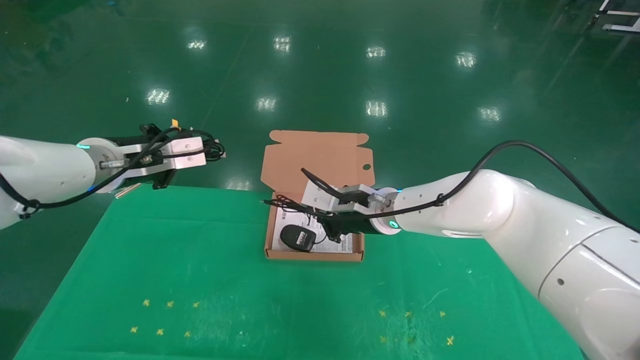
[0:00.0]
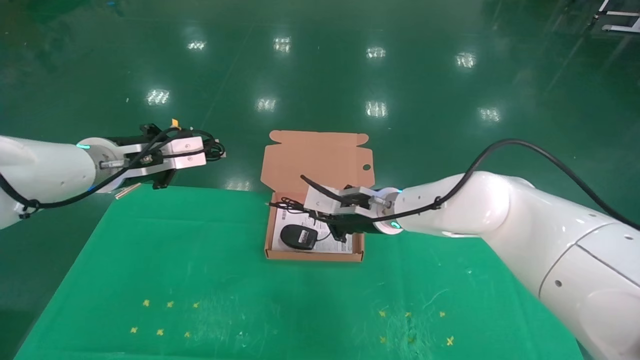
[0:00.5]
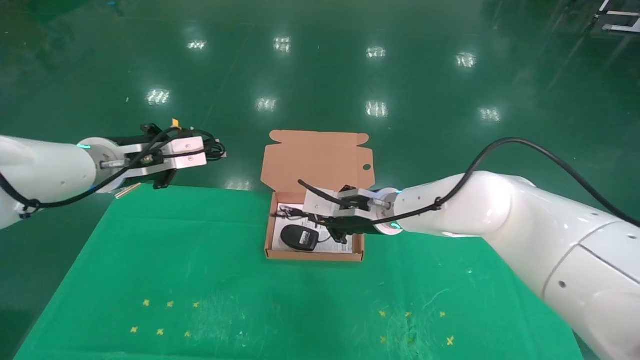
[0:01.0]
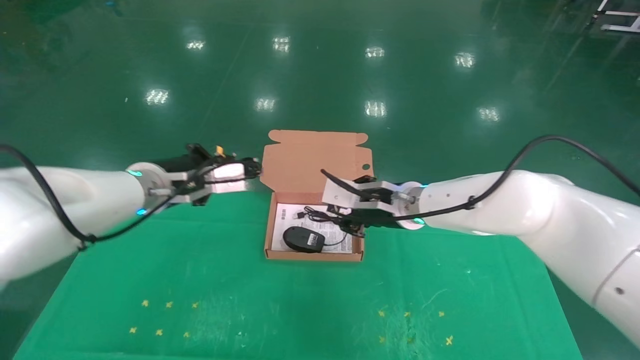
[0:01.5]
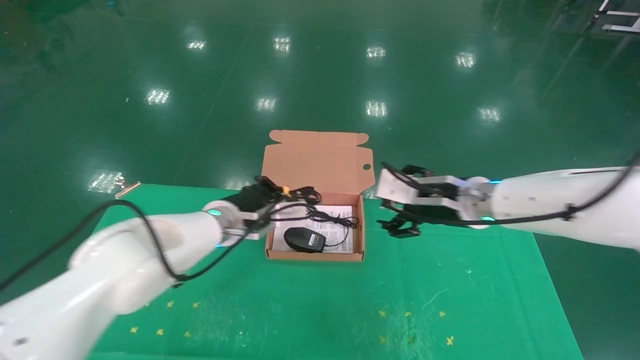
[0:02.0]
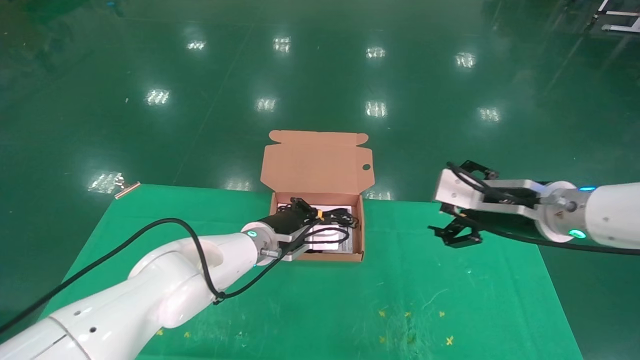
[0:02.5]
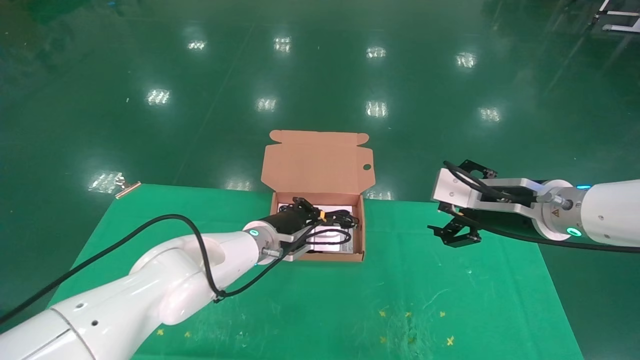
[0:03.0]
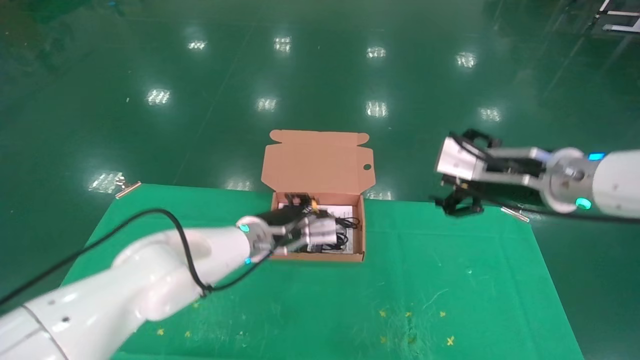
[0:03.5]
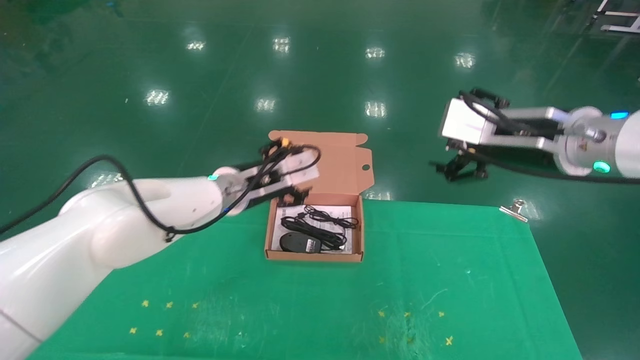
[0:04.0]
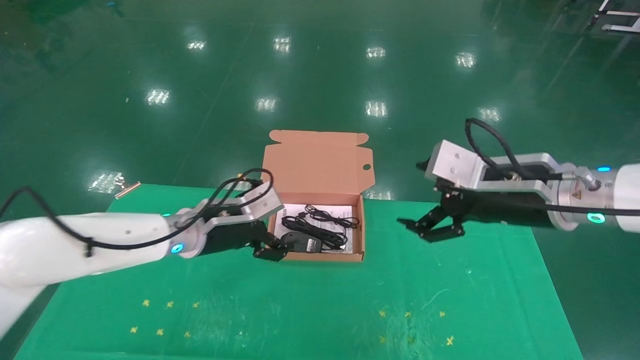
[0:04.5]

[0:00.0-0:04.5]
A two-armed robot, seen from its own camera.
Task of the whole recording: grasp data cable left put into box grasp mouse right put into box.
Step, 0:00.0 to 0:03.5: Place the mouse and power cord into the box.
0:00.0 to 0:02.0: The right gripper shifts roughly 15 cm to the right, and opens its fingers. Meanwhile the left gripper shifts approximately 20 cm to the right and downward.
0:02.0 to 0:04.5: The left gripper travels to the left by some 5 cm, and opens up. The right gripper travels backward by some 10 cm.

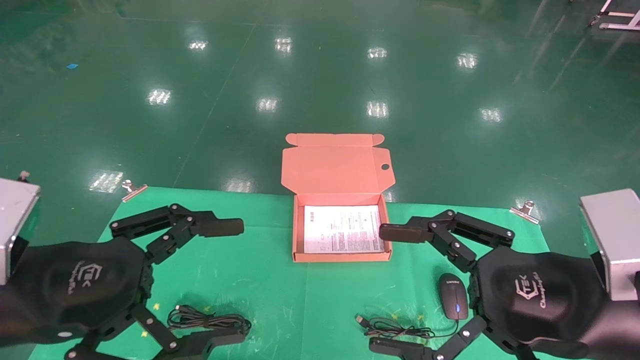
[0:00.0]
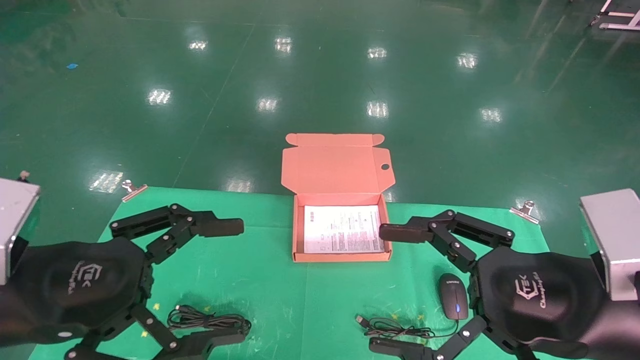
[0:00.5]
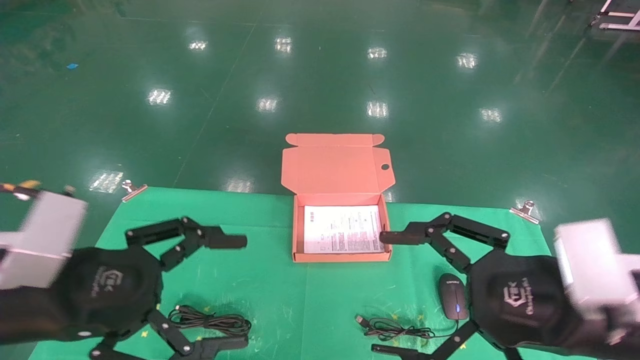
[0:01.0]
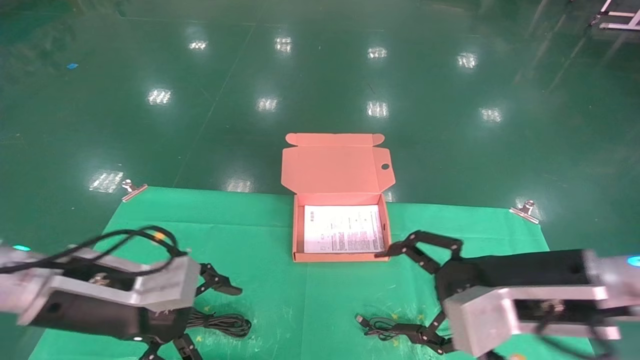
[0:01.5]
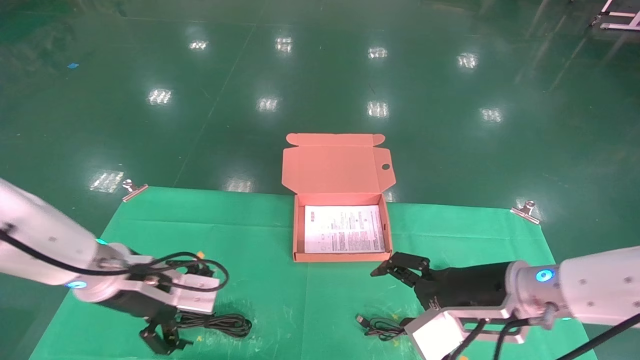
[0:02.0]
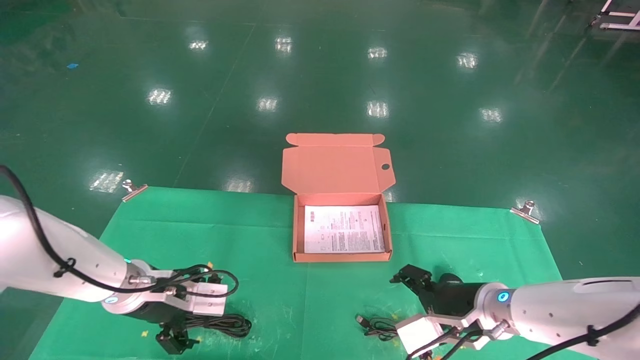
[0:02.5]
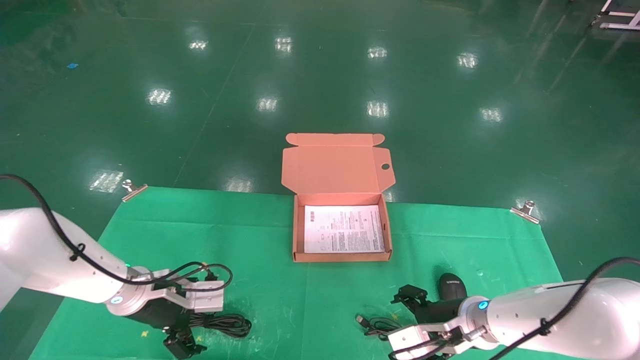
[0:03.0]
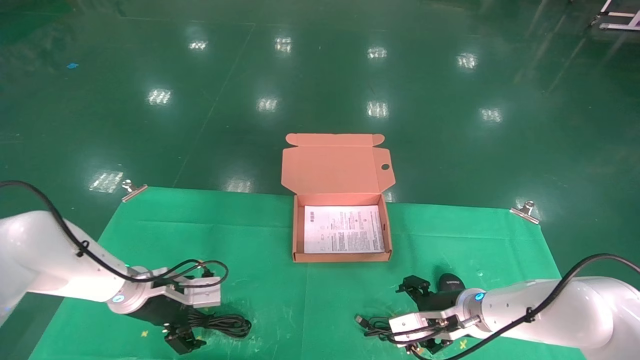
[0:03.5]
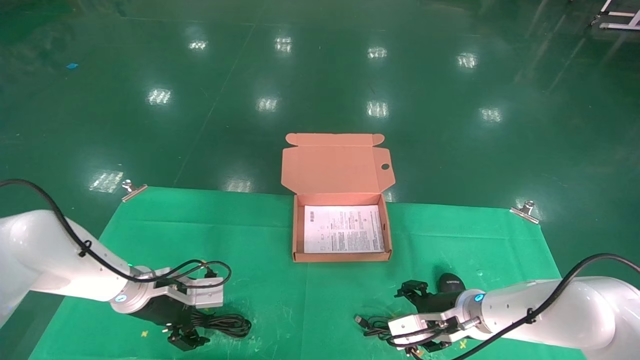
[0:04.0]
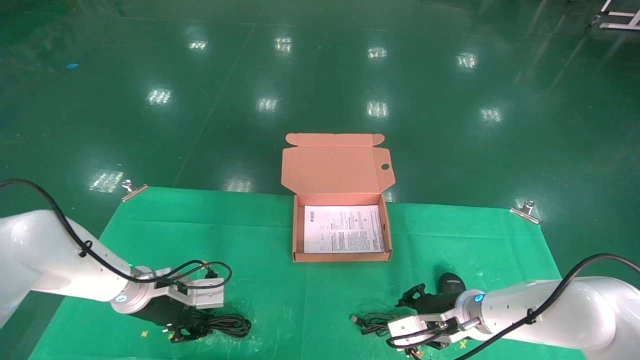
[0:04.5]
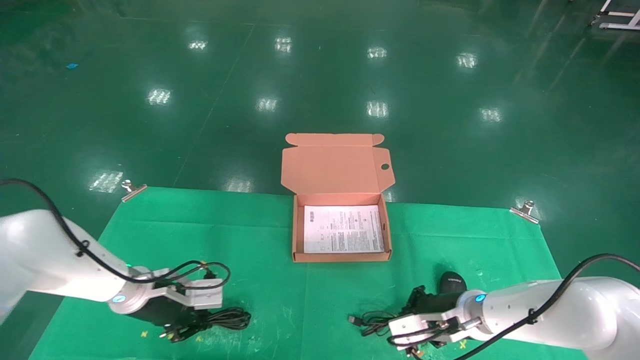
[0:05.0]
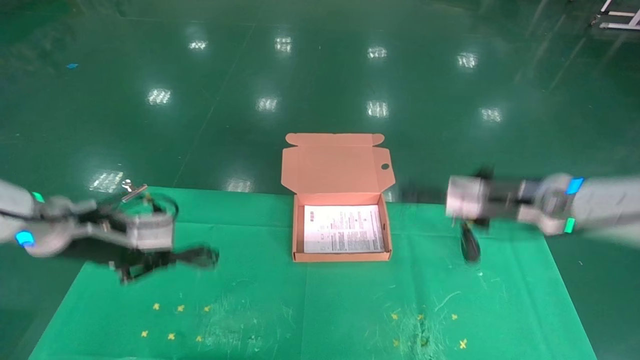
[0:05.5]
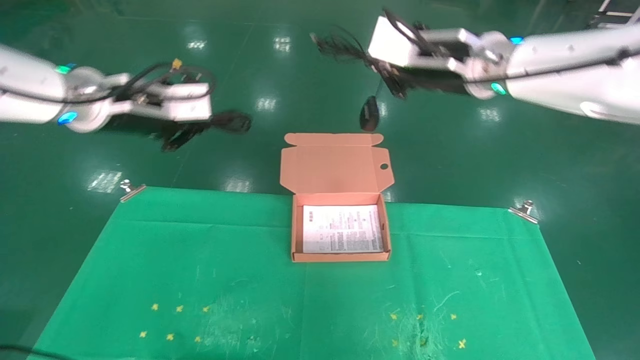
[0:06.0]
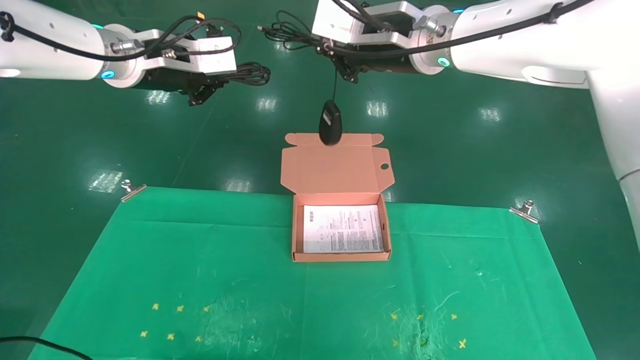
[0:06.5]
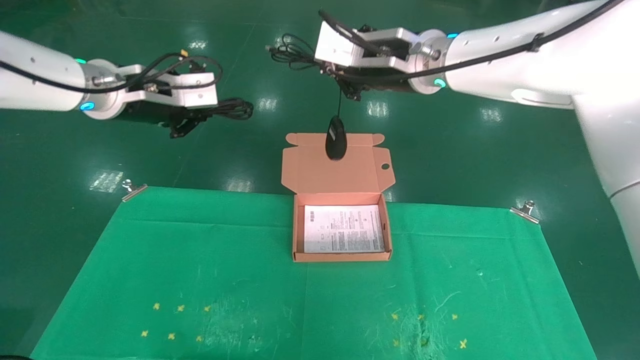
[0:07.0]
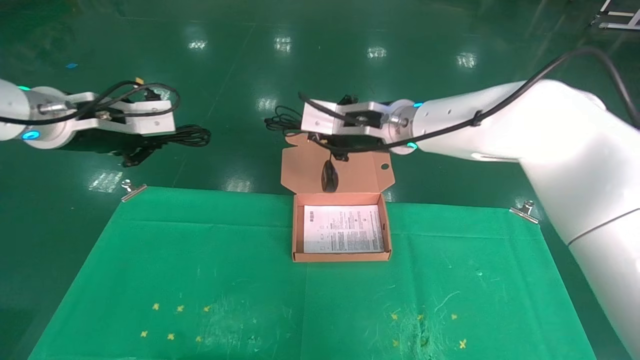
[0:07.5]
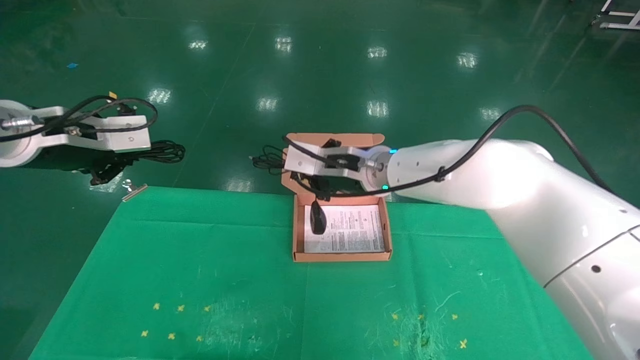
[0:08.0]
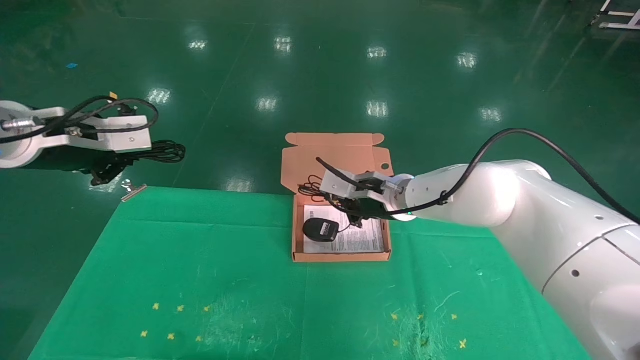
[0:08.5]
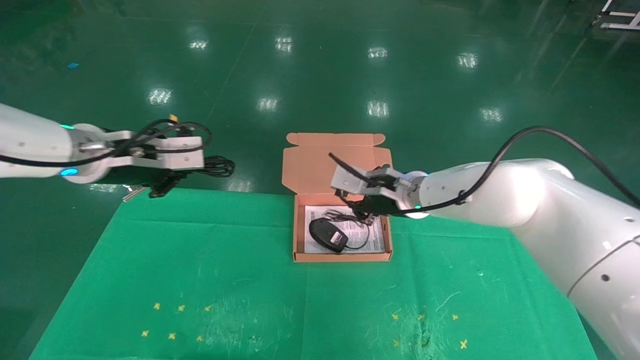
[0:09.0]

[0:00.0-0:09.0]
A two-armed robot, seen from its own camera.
Task of the whole recording: grasp data cable left put into box grasp mouse right put into box.
Step, 0:01.0 to 0:05.0: Grab and pick up both the mouse and power cord from the accessory packaging area at the same time.
0:00.0 to 0:02.0: The two grippers go about 15 cm forward and downward.
0:02.0 to 0:04.5: The left gripper moves forward and downward, roughly 10 cm, and closes up; the right gripper travels downward and forward by some 15 cm, and closes its fingers.
0:04.5 to 0:07.0: Both grippers travel together upward, roughly 35 cm. The right gripper closes; the left gripper closes its fingers.
0:07.0 to 0:09.0: The right gripper goes some 15 cm downward; the left gripper goes about 5 cm downward.

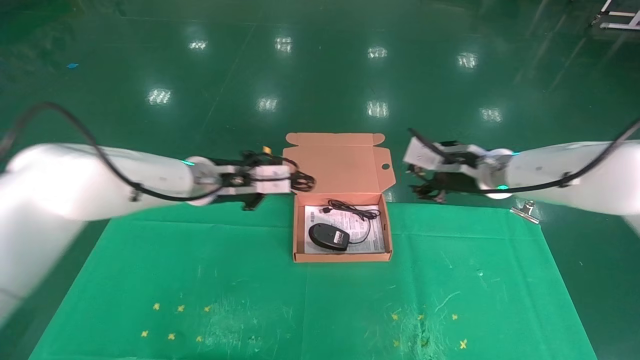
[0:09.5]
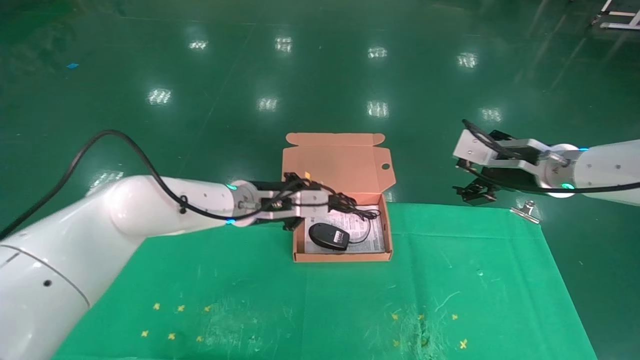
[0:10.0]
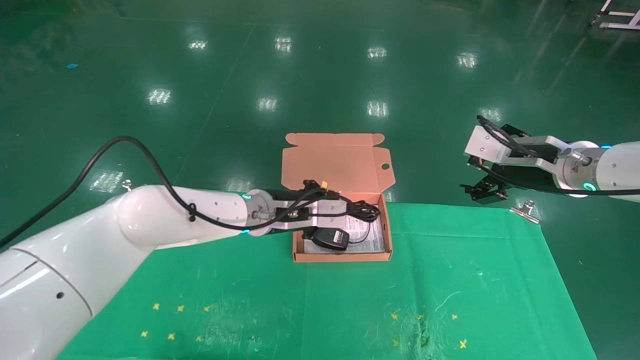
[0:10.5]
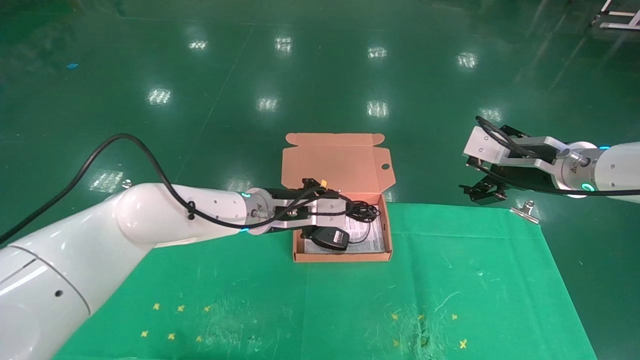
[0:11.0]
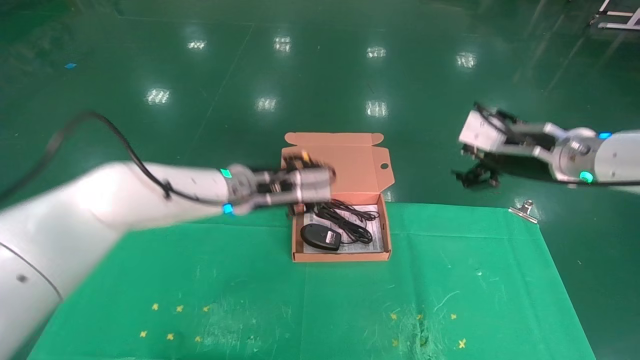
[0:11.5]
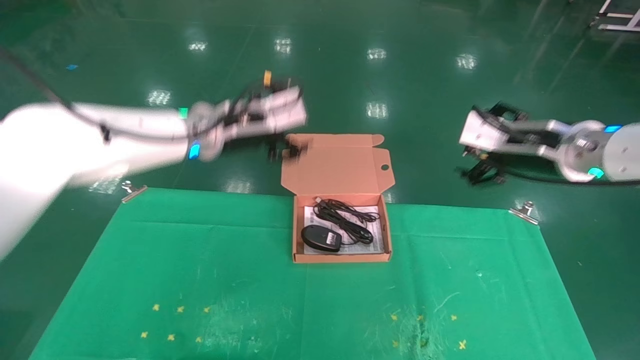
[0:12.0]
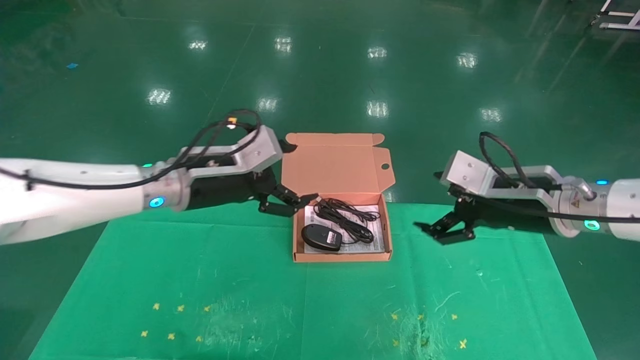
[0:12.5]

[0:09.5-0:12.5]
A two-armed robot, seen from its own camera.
Task of the whole recording: grasp data cable left put into box grasp mouse right put into box.
0:09.5 to 0:11.0: The left gripper is displaced to the right and downward by roughly 10 cm, while the right gripper moves to the right, about 5 cm, and opens up.
0:11.0 to 0:12.5: The left gripper goes some 15 cm to the left, backward and upward, and opens. Meanwhile the right gripper changes place by roughly 5 cm.

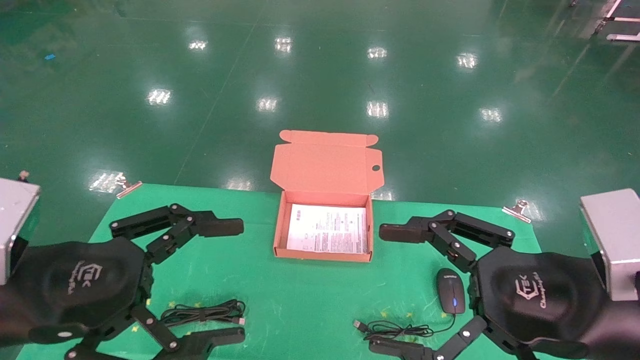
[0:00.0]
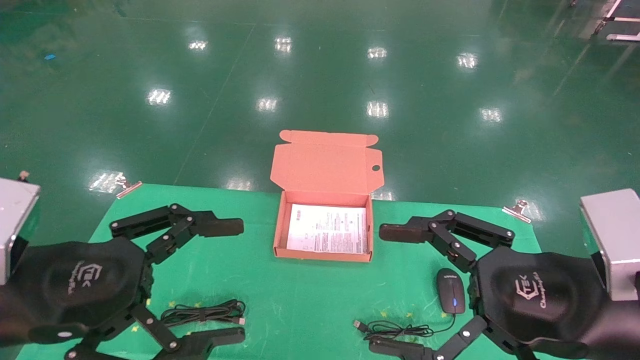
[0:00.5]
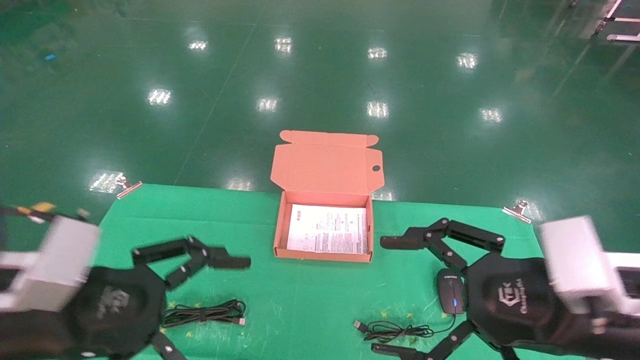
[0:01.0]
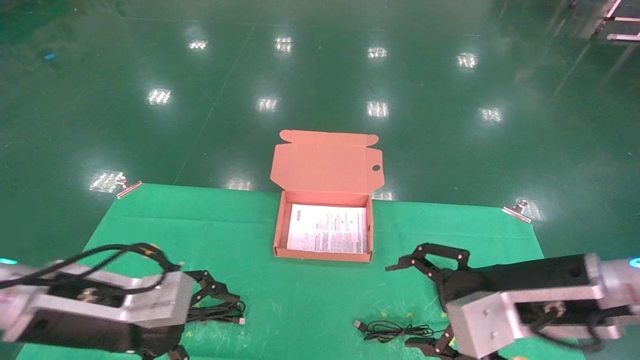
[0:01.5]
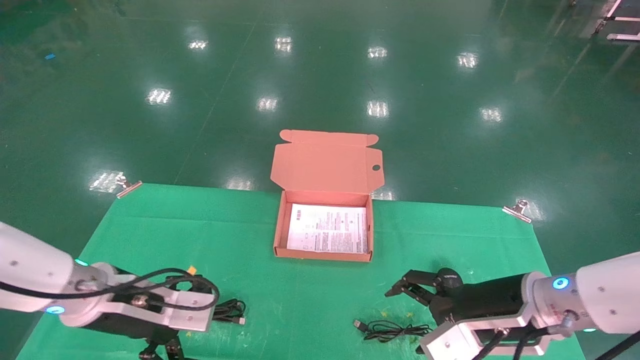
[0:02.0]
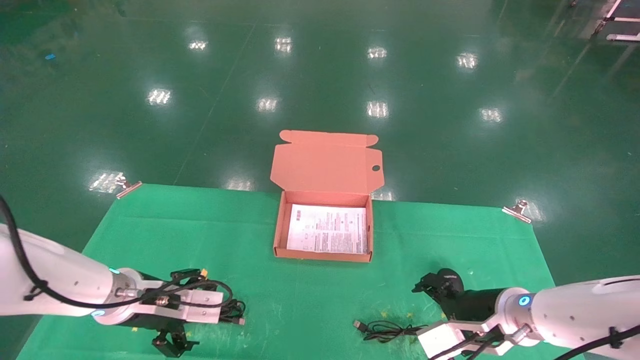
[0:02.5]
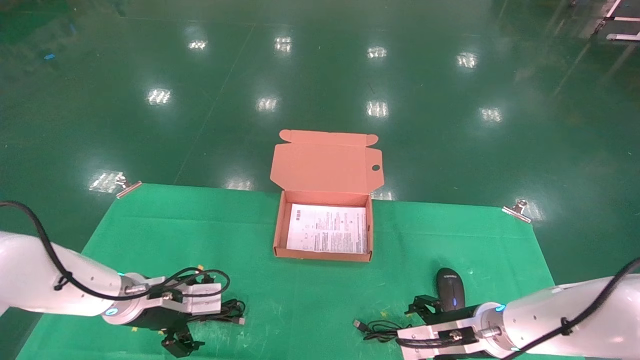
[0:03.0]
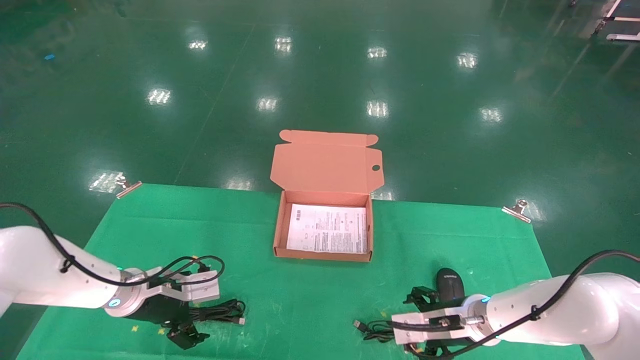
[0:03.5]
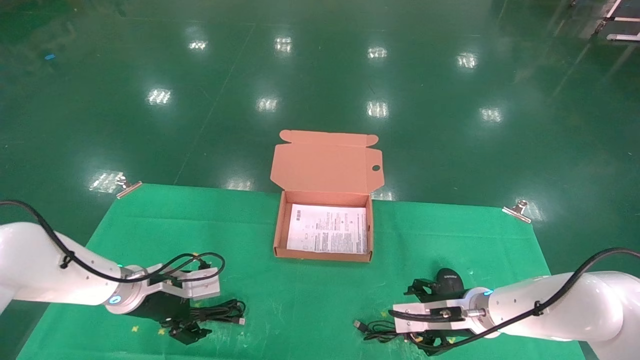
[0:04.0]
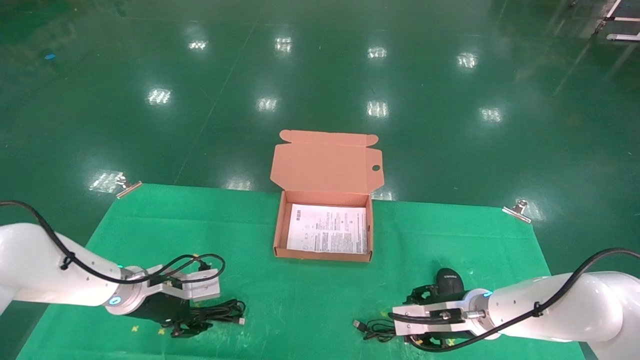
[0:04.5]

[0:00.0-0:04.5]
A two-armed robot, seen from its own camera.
Task of the whole recording: grasp data cable left put into box grasp mouse right put into box.
0:00.0 to 0:02.0: Both grippers move forward and downward, roughly 20 cm.
0:02.0 to 0:04.5: The right gripper shifts about 10 cm forward and downward. Meanwhile the left gripper heads forward, covering roughly 10 cm, and closes up.
